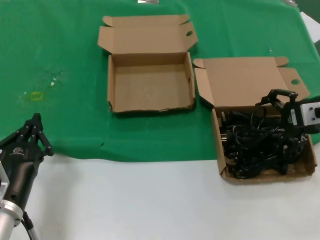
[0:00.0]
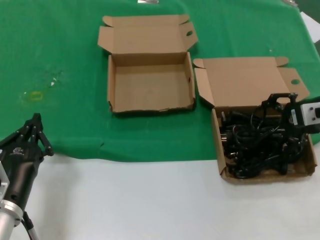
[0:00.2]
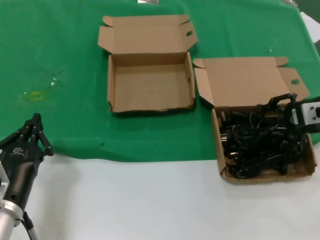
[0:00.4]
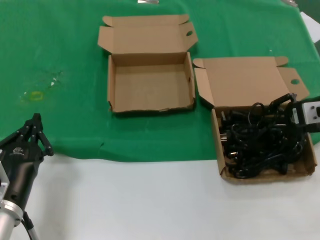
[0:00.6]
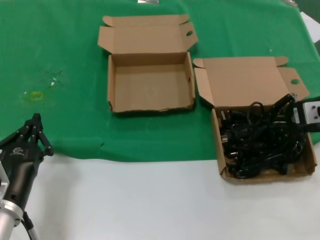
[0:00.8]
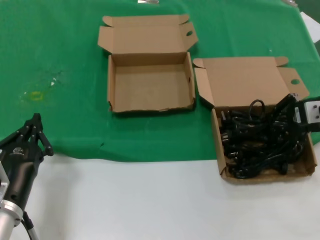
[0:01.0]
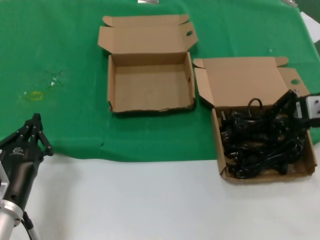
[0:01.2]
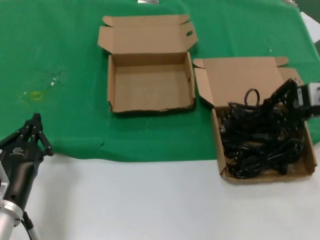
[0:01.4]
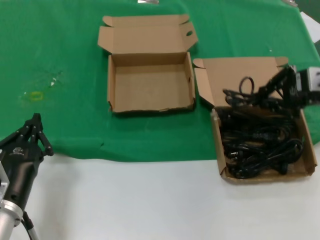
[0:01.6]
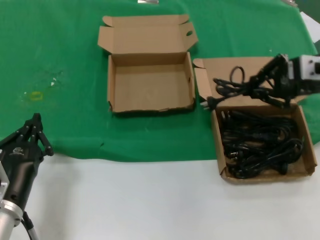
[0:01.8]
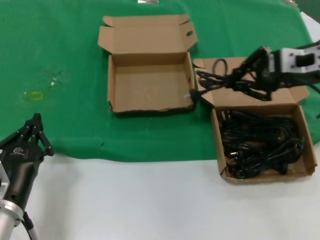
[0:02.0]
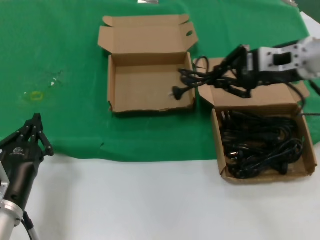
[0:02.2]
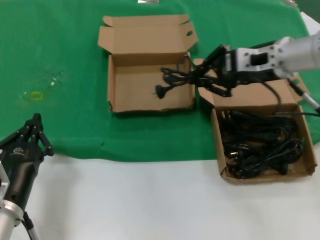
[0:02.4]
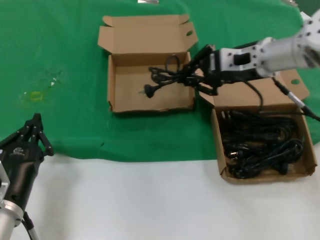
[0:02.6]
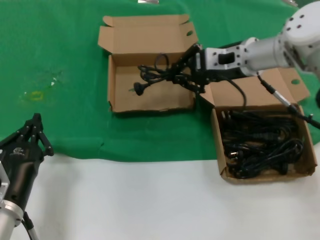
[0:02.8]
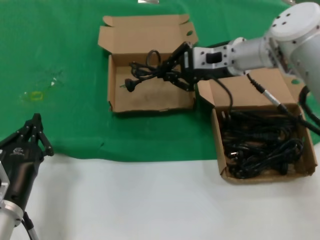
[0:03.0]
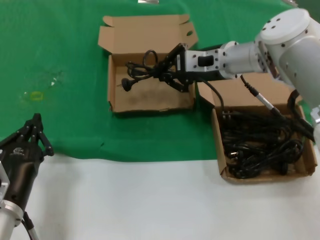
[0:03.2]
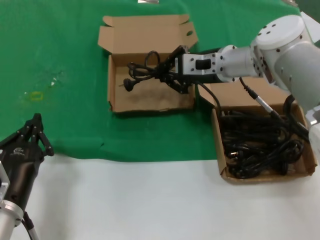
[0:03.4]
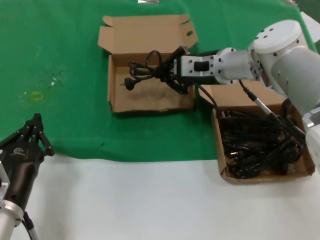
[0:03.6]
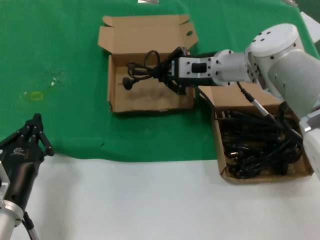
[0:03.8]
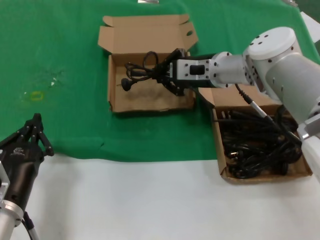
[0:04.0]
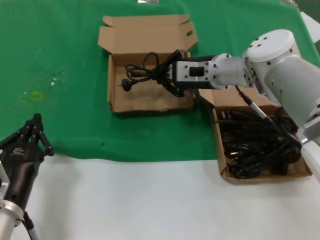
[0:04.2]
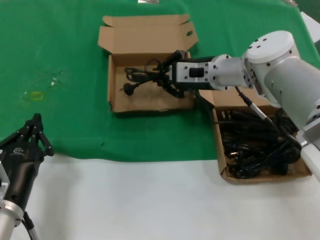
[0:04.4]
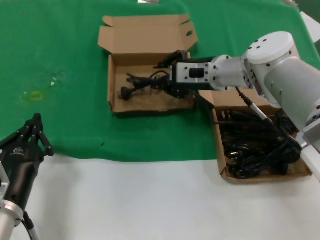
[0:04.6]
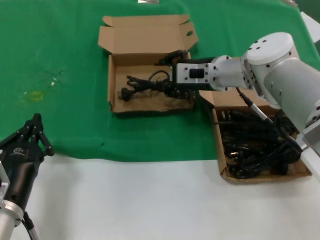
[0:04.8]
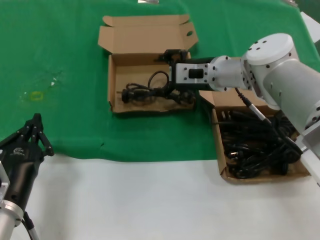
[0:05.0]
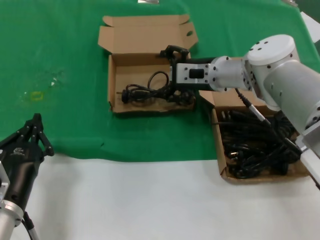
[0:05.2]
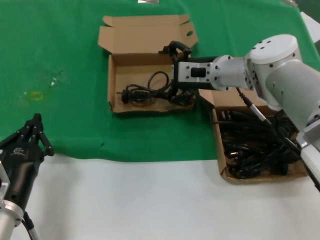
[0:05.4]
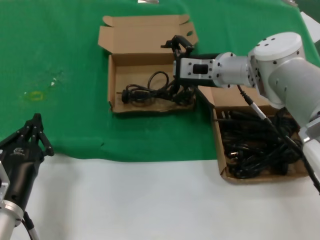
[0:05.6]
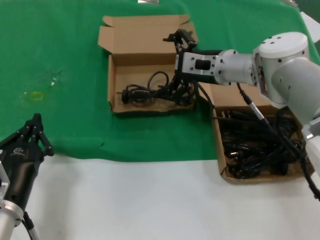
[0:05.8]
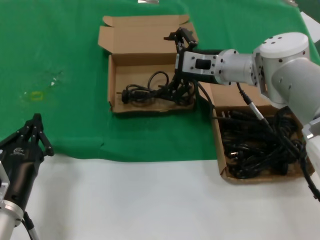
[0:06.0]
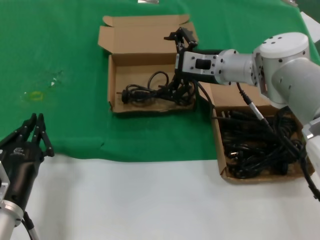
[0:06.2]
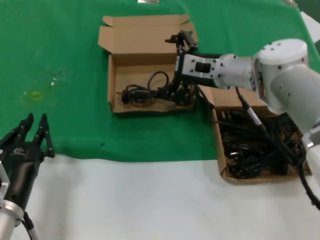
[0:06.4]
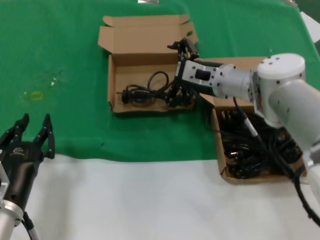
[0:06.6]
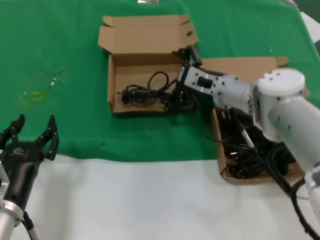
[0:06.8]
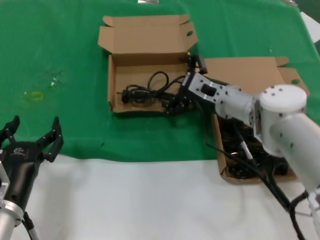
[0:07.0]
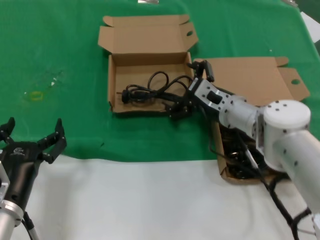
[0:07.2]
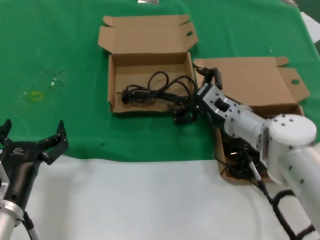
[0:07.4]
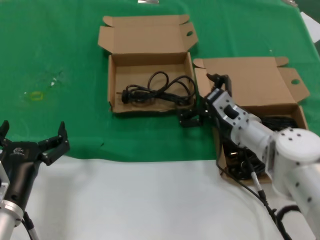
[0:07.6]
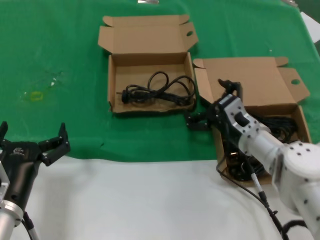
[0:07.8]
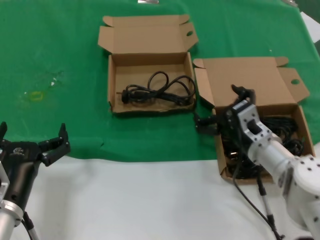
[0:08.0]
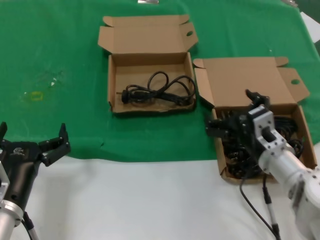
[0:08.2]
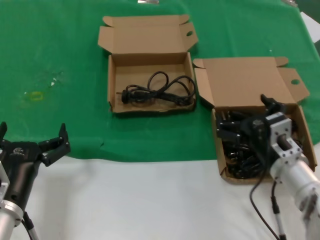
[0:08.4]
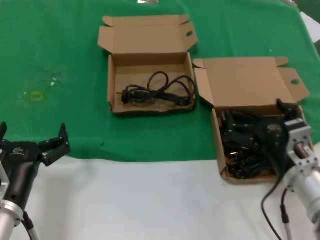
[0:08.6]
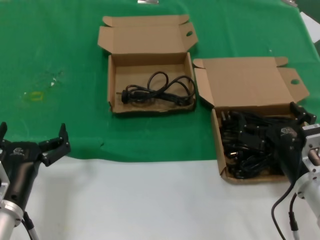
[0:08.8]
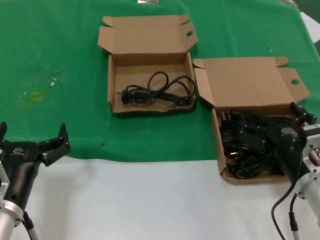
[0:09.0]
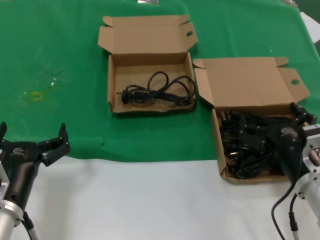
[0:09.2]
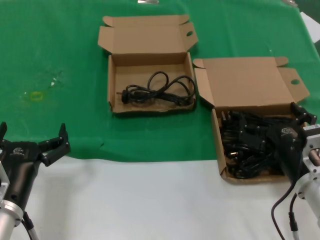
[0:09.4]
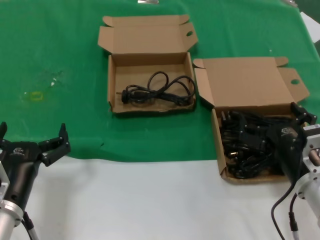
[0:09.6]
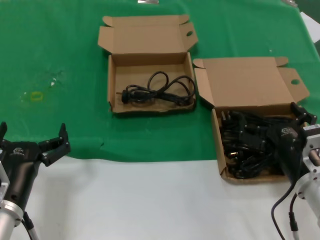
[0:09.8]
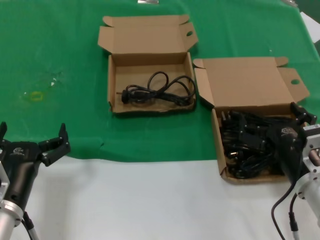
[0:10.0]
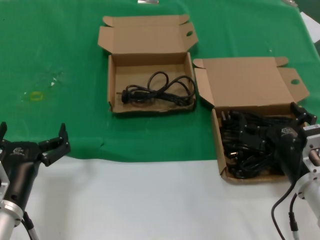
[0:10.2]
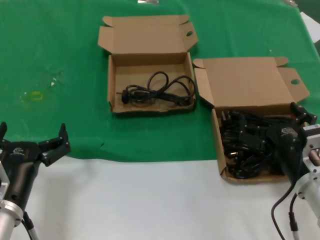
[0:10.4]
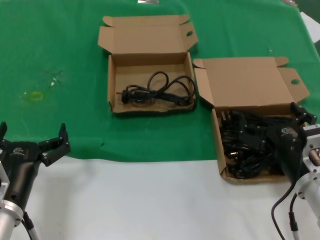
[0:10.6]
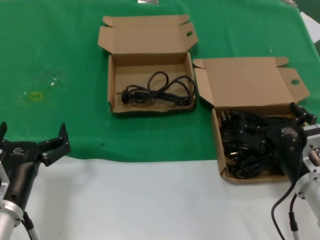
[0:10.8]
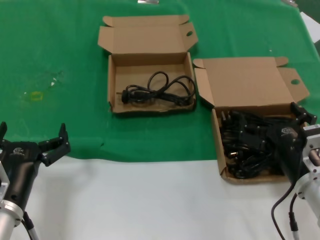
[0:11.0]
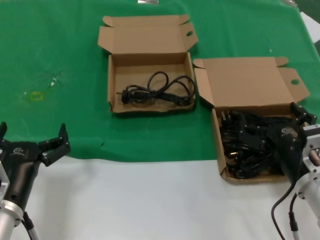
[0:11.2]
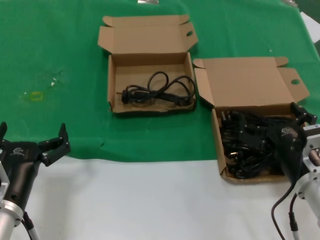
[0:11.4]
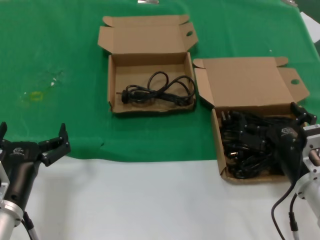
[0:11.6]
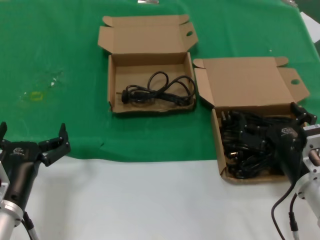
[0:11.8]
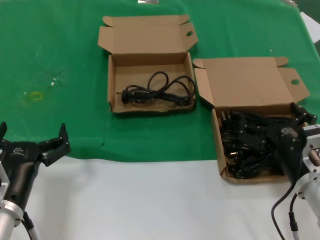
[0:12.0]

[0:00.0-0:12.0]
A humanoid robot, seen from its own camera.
Task of the whole recording: take the parts from the box containing them and put them into an empty box.
Step, 0:01.2 to 0:05.0: Place the data cable in the another box.
0:00.0 to 0:01.6: The right hand travels upward by about 5 cm.
0:01.6 to 0:03.0: The right hand travels to the left and forward by about 20 cm.
0:03.0 to 0:04.4: The right hand moves approximately 5 cm.
0:04.4 to 0:06.0: There are only small adjustments of the hands.
0:06.0 to 0:07.6: The right hand goes roughly 15 cm downward and backward.
0:07.6 to 0:09.0: The right hand shifts some 20 cm backward and to the right.
0:09.0 to 0:12.0: The two hands keep their place.

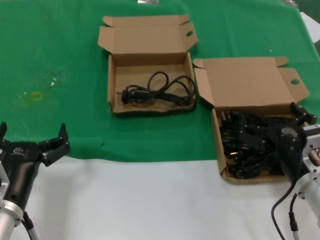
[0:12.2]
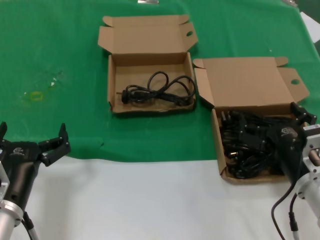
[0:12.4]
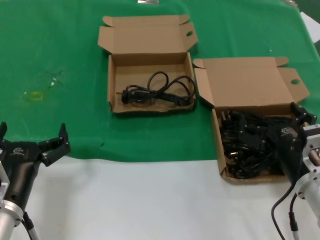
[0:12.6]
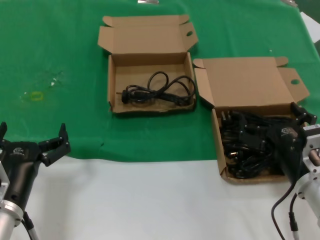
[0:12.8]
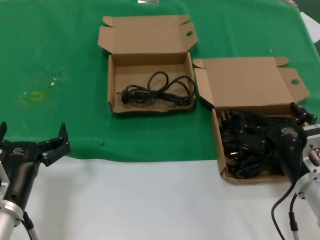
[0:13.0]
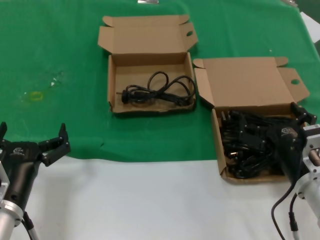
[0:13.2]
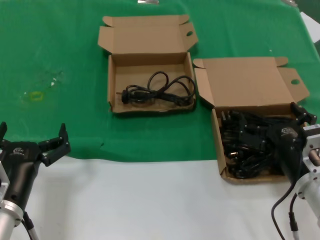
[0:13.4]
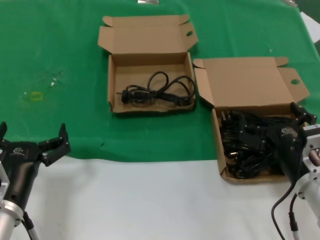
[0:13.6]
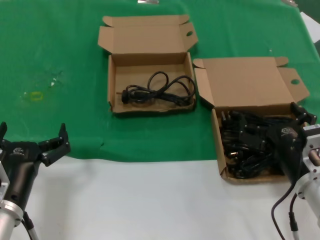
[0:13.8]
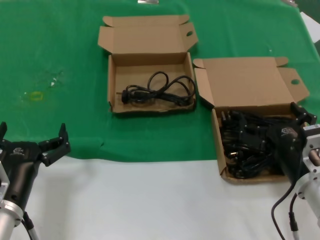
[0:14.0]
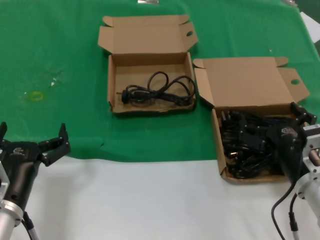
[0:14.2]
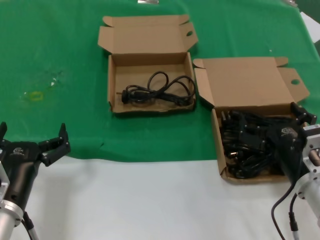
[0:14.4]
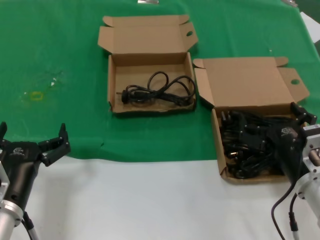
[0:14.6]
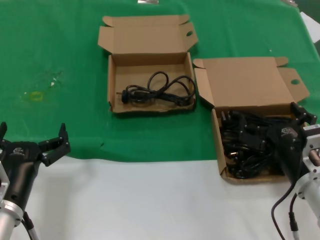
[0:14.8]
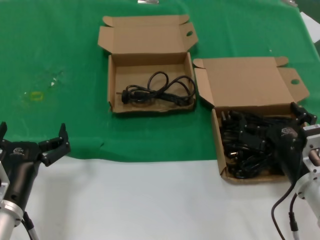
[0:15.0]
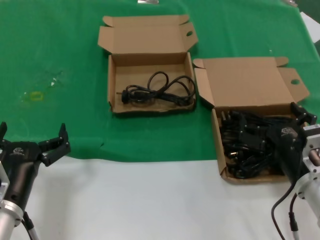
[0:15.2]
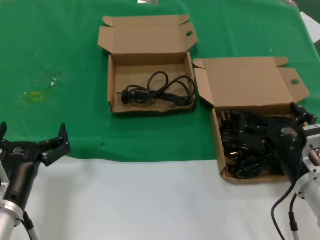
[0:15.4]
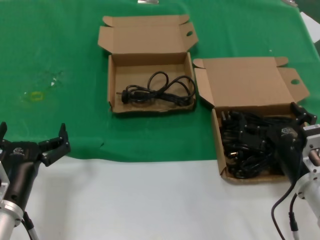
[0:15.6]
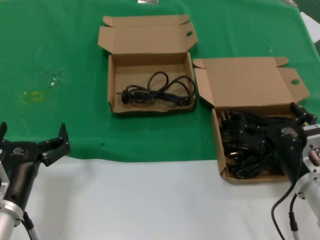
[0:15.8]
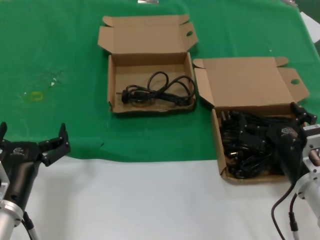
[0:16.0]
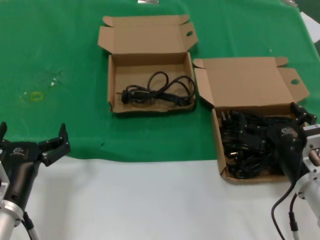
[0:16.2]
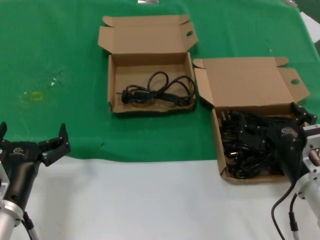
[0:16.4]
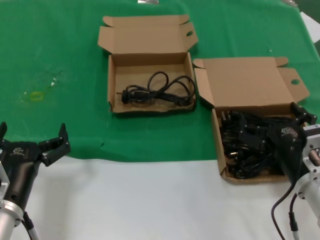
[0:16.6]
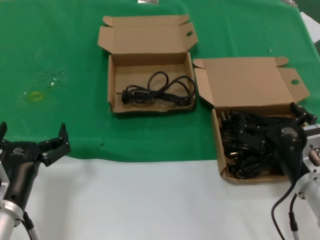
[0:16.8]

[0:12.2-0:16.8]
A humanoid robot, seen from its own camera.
Task of the whole recording: take the parts from the box containing them and put them into an empty box.
0:12.2 to 0:16.8: Neither hand changes place.
